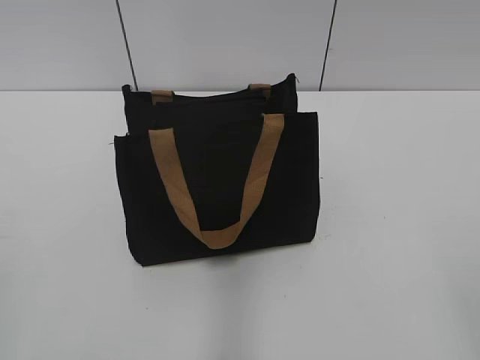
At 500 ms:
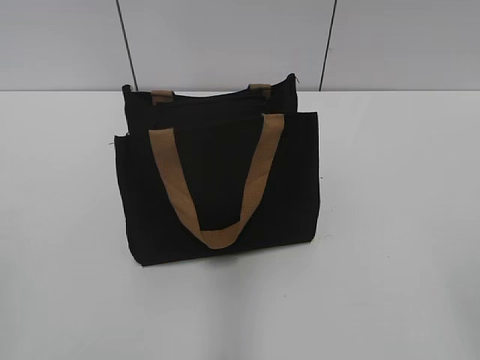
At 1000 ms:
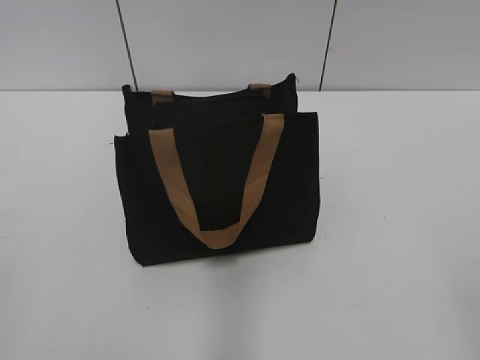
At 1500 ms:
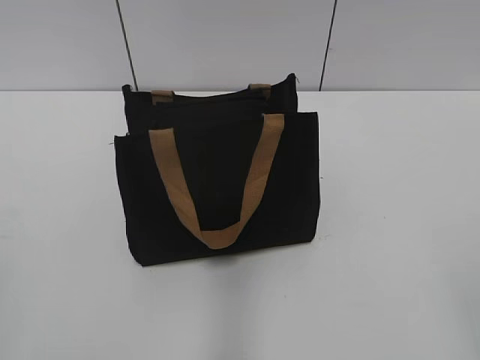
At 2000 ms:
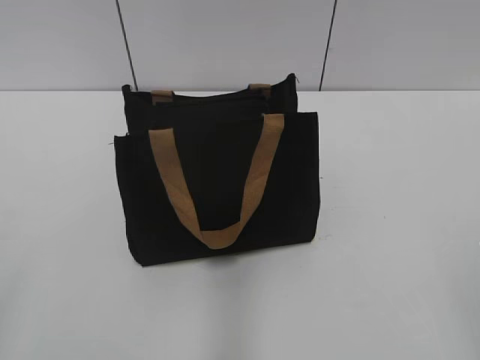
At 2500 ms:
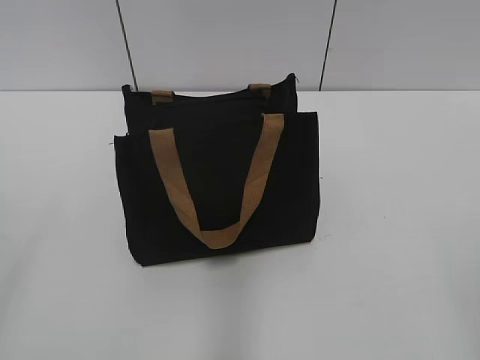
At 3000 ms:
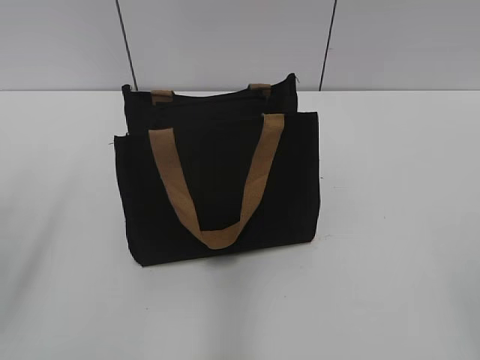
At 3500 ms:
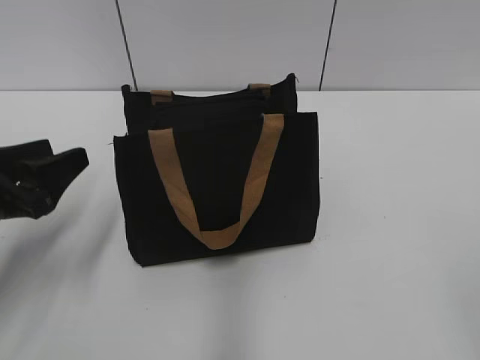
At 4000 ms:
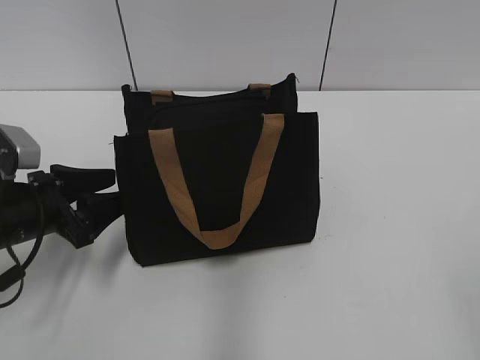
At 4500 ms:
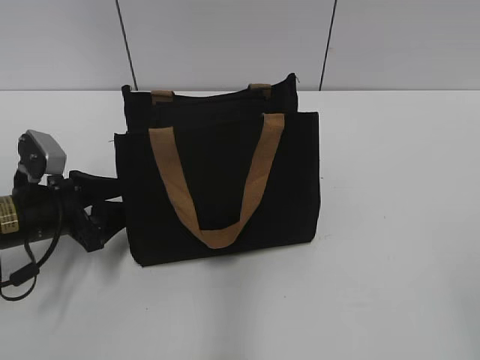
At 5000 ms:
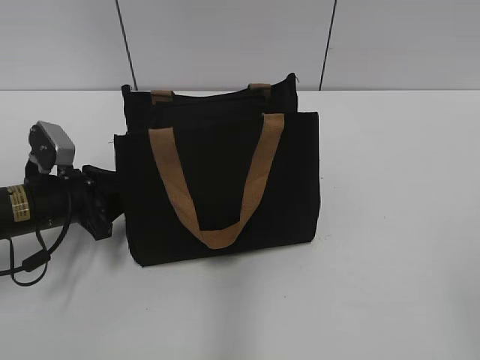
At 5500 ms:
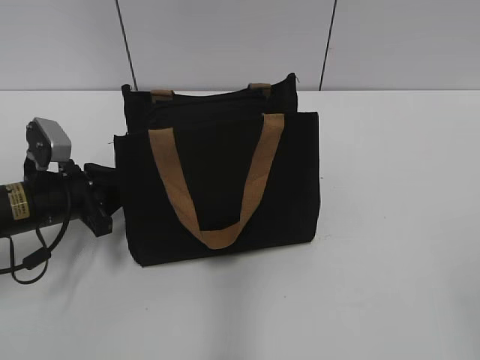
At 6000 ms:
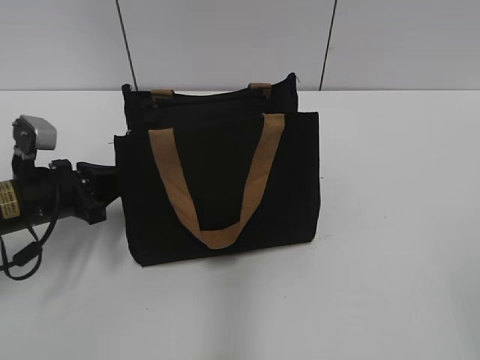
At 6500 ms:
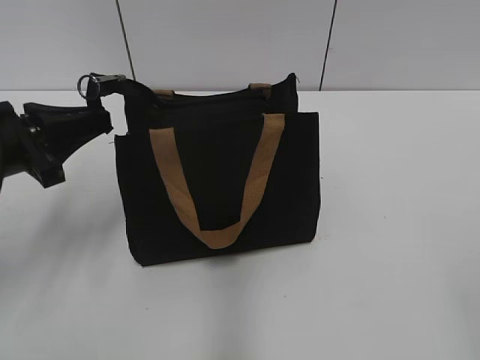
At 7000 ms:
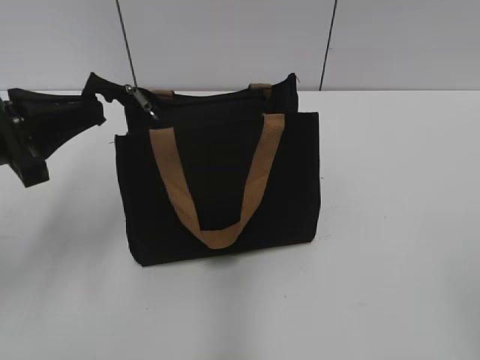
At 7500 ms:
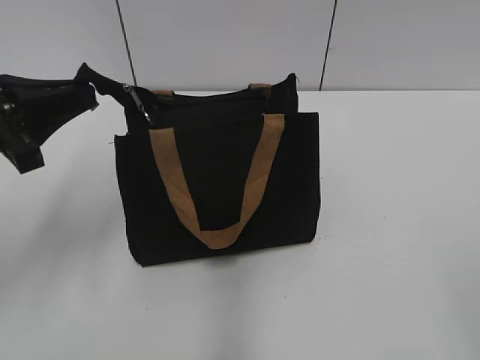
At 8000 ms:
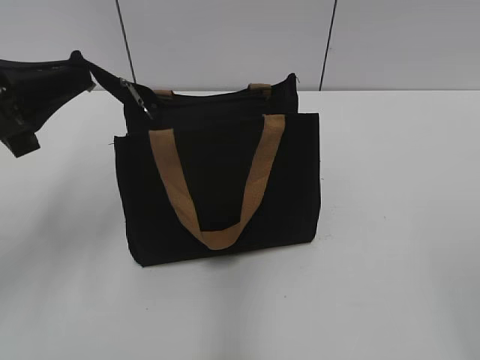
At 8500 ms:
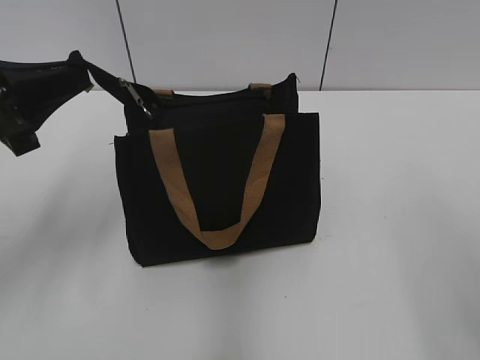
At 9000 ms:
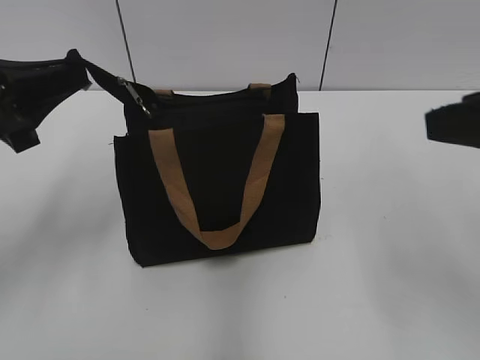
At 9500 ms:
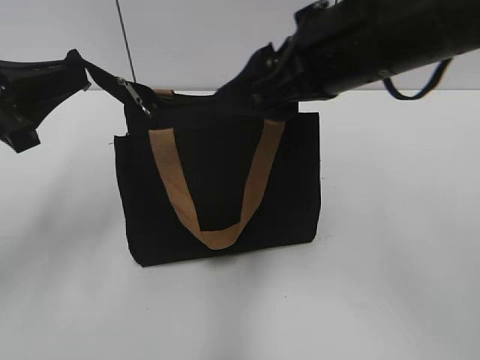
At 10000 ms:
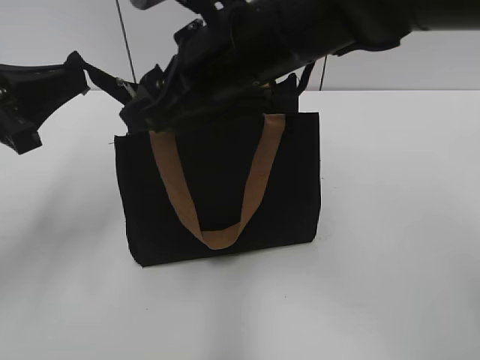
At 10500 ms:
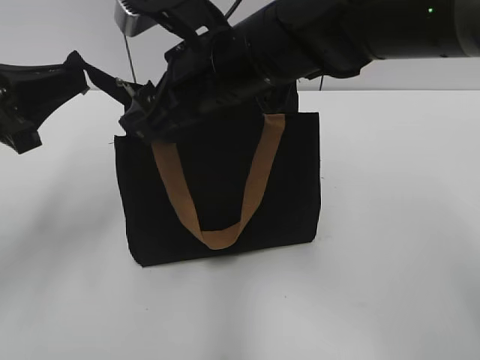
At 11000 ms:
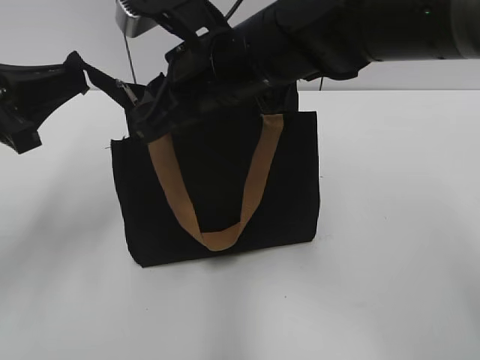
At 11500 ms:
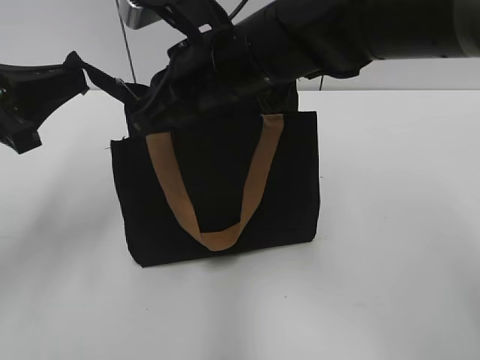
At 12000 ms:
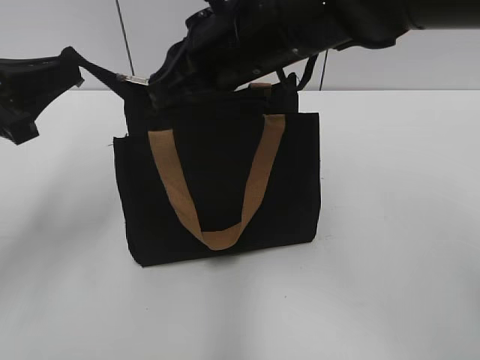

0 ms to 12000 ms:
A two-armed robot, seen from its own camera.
2000 ms to 4000 ms: The left gripper moves forward and downward, approximately 30 cm.
4000 ms to 6000 ms: The left gripper goes approximately 5 cm forward, and closes.
6000 ms to 8000 ms: The left gripper shifts about 15 cm upward.
8000 ms to 10000 ms: The right gripper goes some 40 cm forward and to the left.
10000 ms to 12000 ms: The right gripper closes.

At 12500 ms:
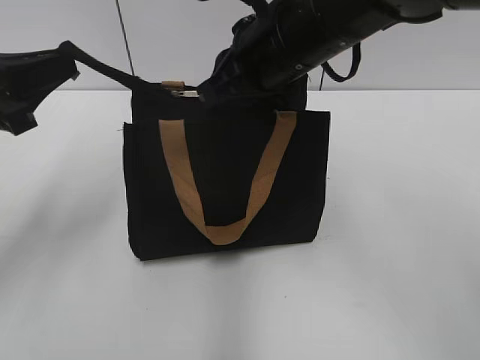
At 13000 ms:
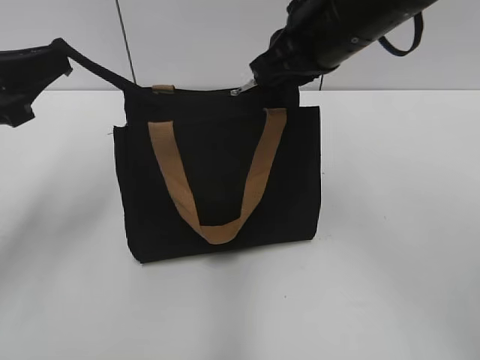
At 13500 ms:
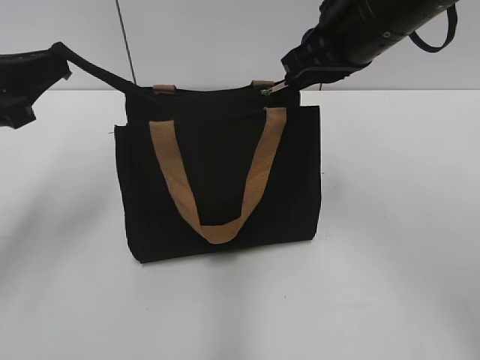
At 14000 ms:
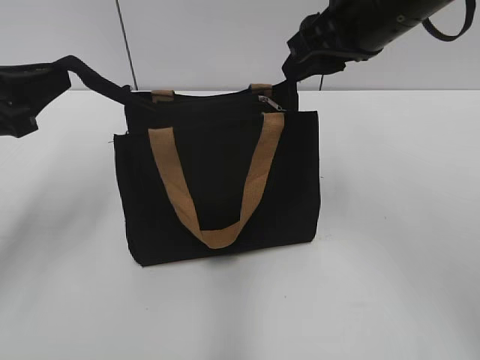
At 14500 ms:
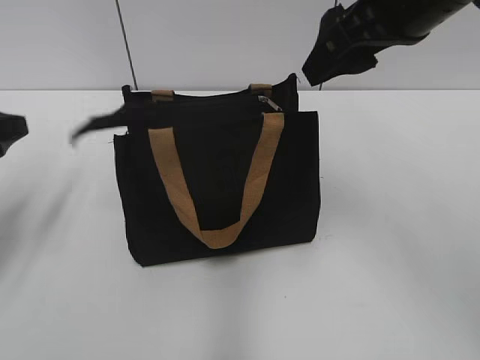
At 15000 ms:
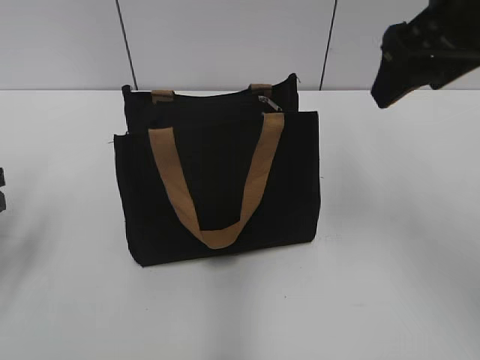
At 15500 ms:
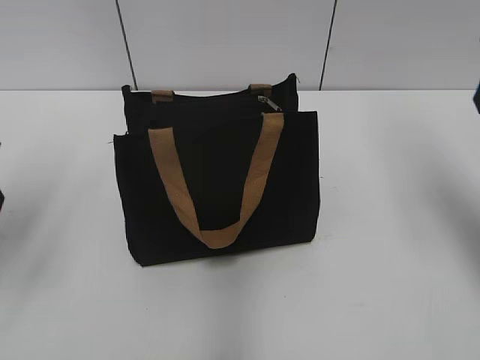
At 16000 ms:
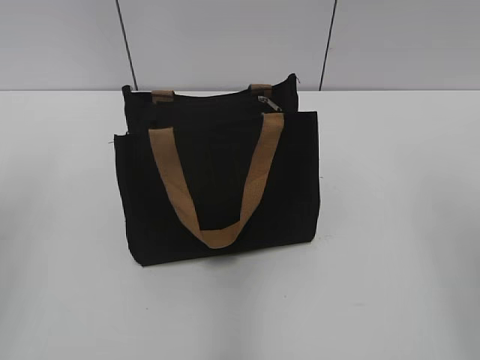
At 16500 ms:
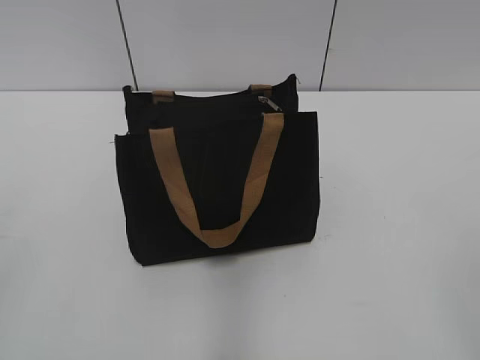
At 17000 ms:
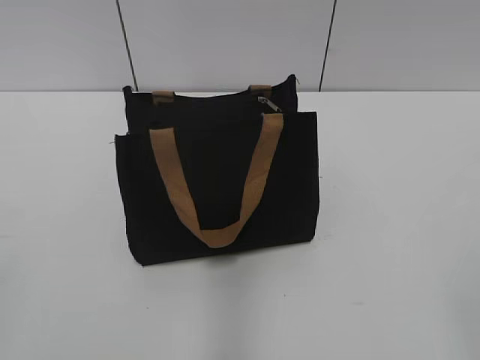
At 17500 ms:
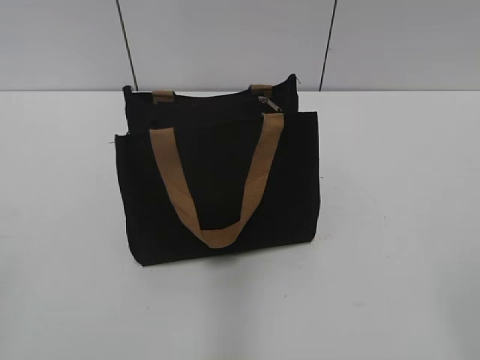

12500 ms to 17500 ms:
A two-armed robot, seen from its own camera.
Step, 14000 ms to 14500 ms: Grab the zipper with your left hand.
12500 ms to 15000 ms: The left gripper moves downward and to the left, approximately 10 cm, and opens its fingers; the right gripper moves to the right and upward, about 15 cm, and opens its fingers.
15000 ms to 17500 ms: The right gripper moves backward, about 30 cm; the left gripper goes approximately 25 cm backward and upward.
